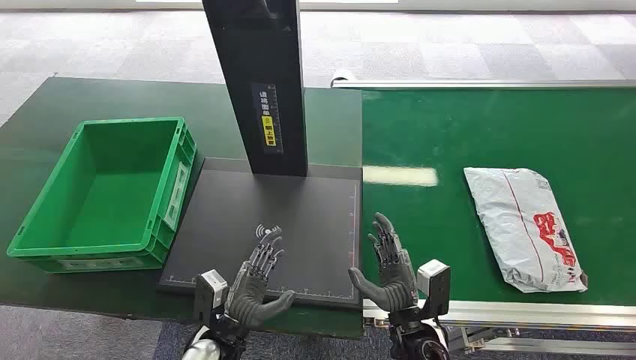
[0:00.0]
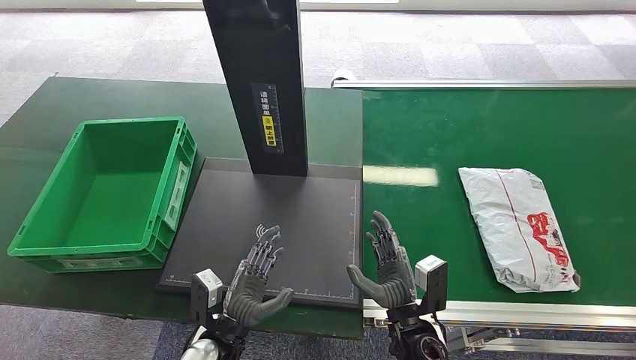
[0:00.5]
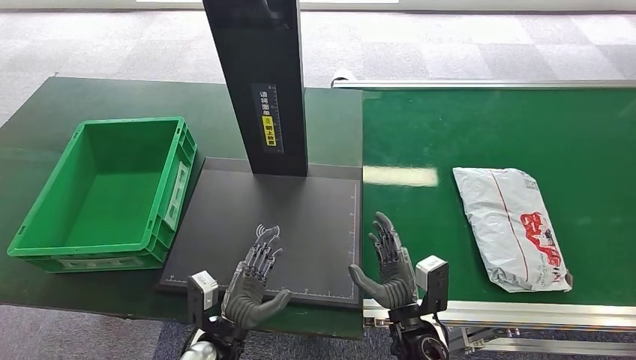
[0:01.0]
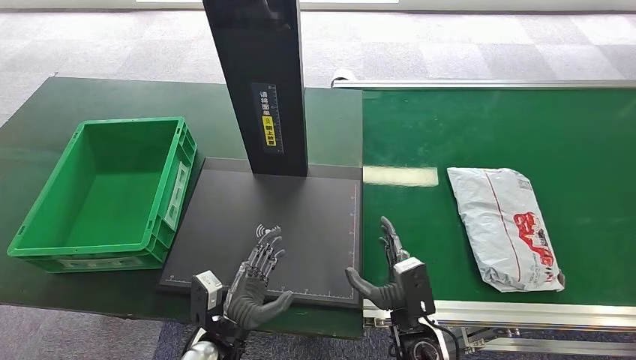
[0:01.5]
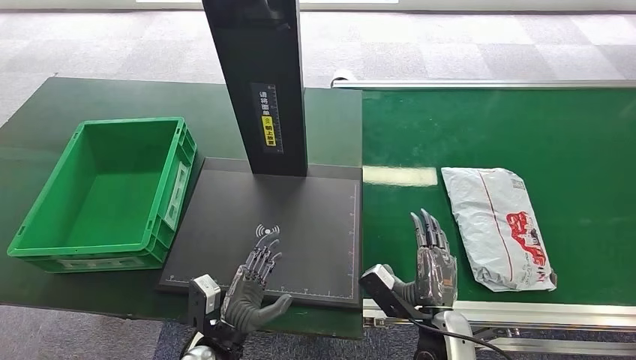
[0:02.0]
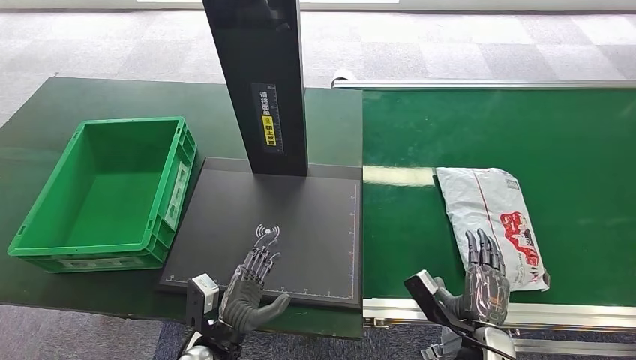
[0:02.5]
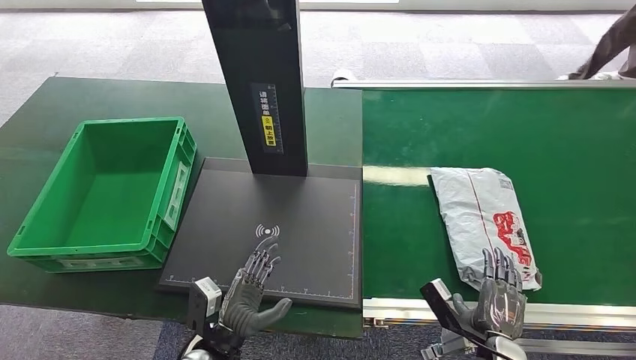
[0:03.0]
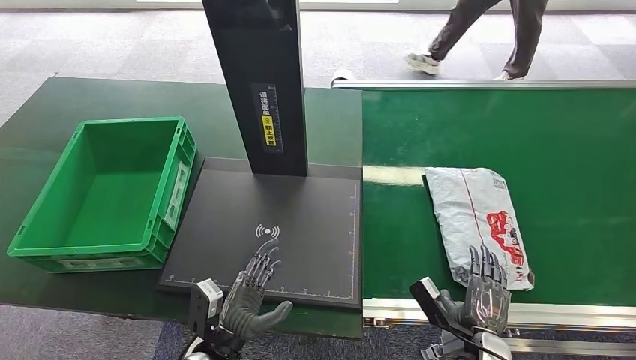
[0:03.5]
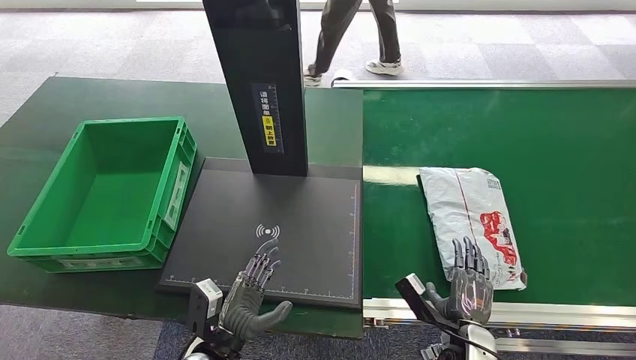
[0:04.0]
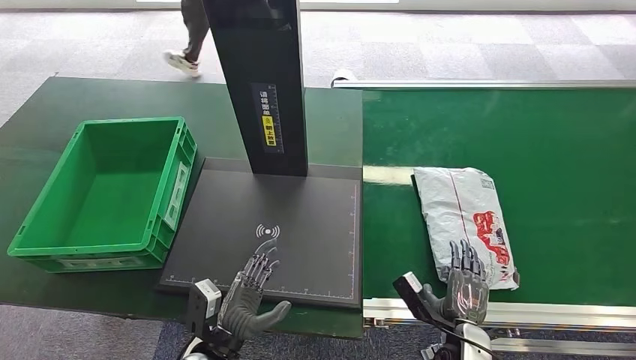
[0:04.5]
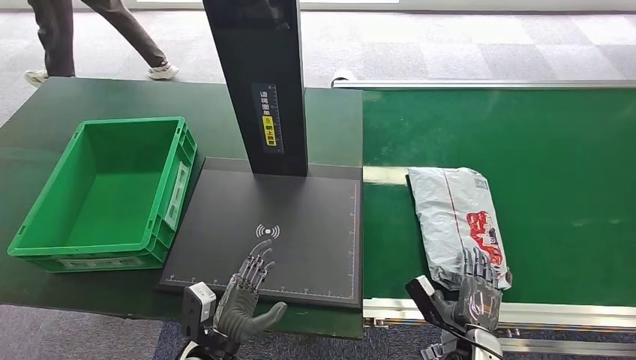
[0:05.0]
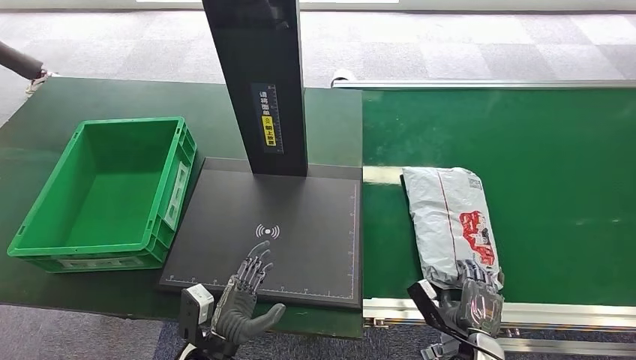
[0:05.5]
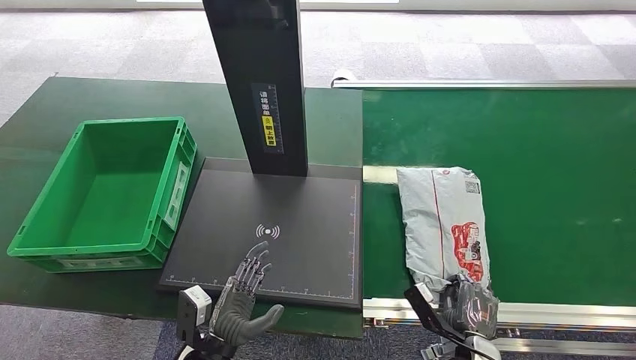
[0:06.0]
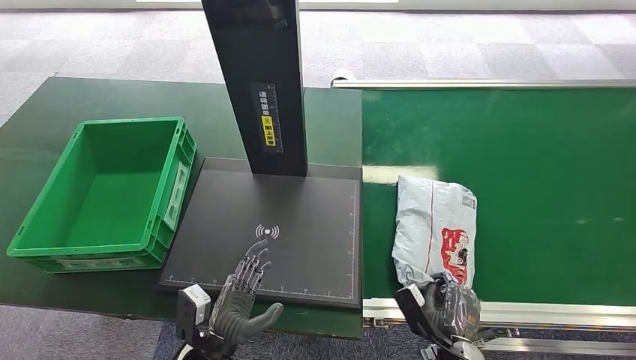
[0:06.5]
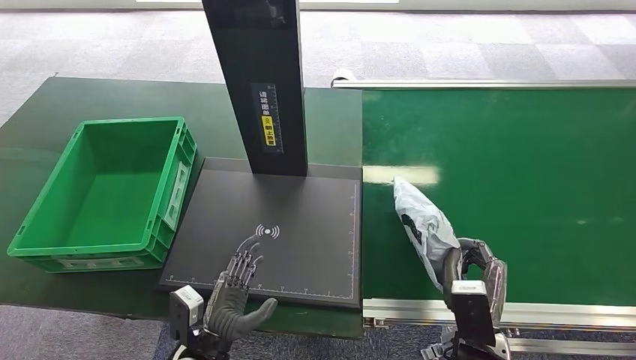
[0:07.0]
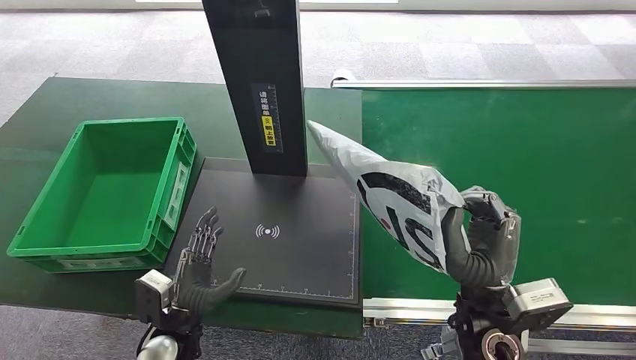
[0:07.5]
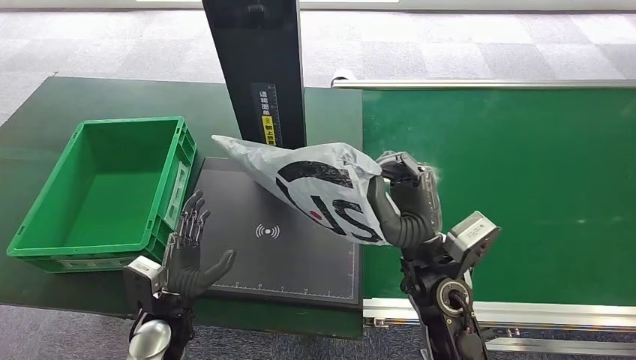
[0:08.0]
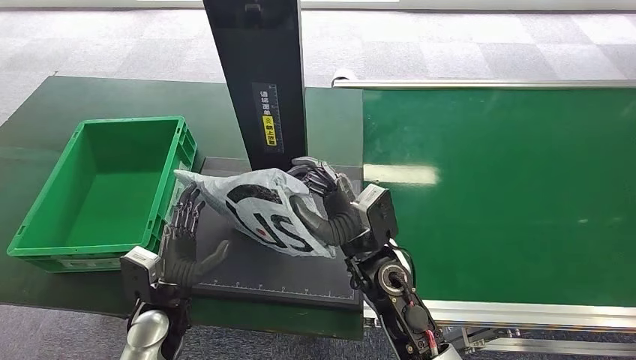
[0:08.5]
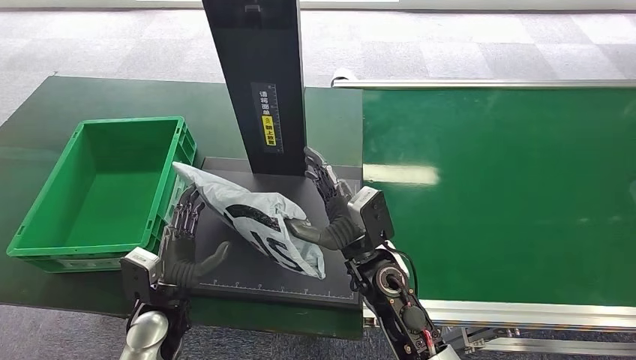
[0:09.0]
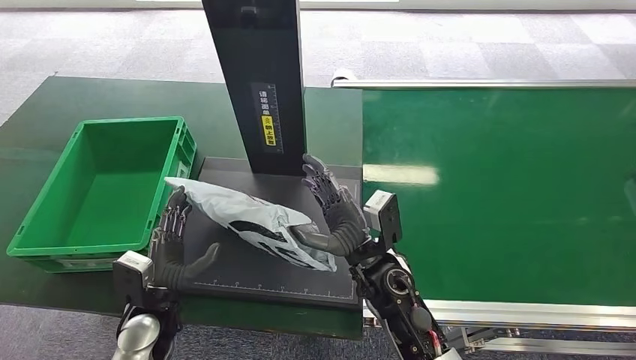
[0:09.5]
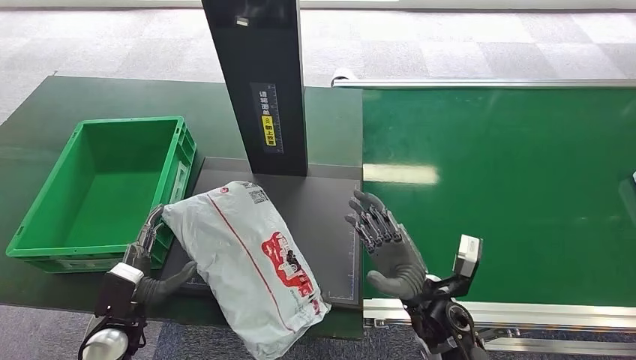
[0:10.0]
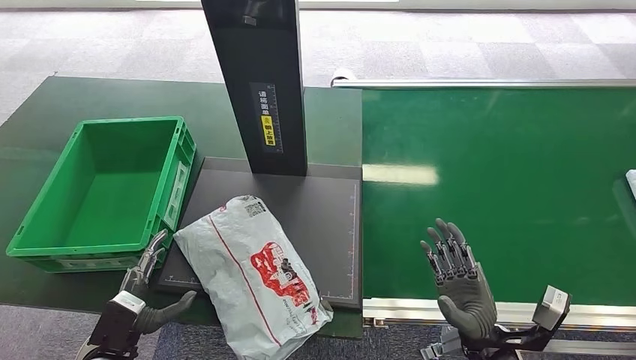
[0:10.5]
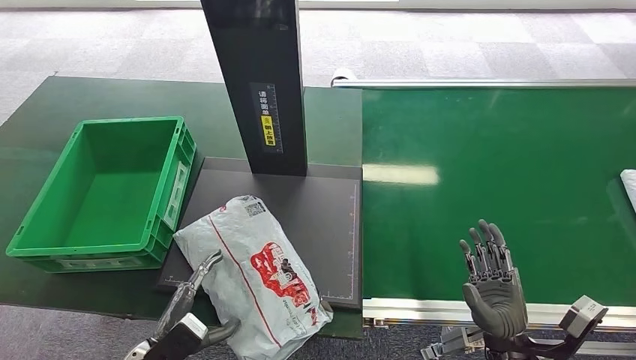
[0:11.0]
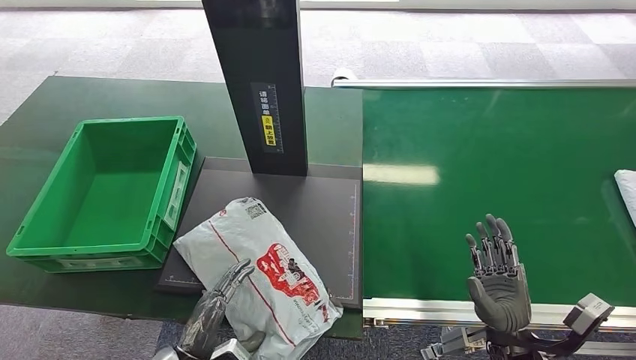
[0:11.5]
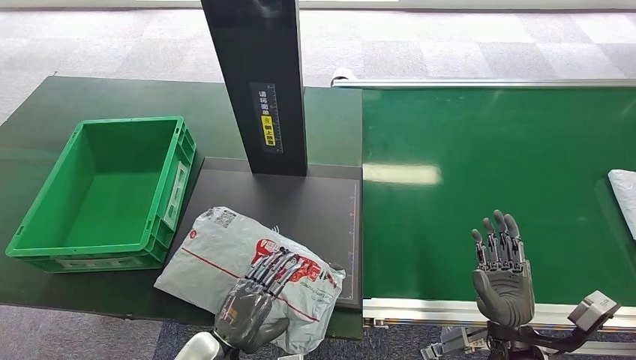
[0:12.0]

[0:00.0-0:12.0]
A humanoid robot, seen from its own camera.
Step, 0:00.0 to 0:07.5: Pick up the package from the conveyor belt.
Step, 0:08.5 to 0:09.5: Place the package onto the inbound machine.
0:02.0 to 0:04.0: The right hand travels downward and to the right by about 10 cm.
0:04.0 to 0:06.0: The hands make only small movements.
0:06.0 to 0:08.0: The left hand travels to the left and forward by about 10 cm; the right hand goes approximately 30 cm upward and to the left.
0:08.0 to 0:10.0: The left hand travels to the left by about 10 cm. The right hand moves downward, some 10 cm.
0:10.0 to 0:12.0: The right hand heads to the right and backward, covering about 10 cm; the left hand travels to the right by about 15 cm.

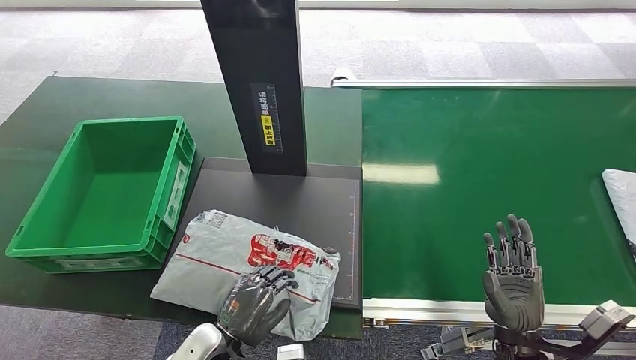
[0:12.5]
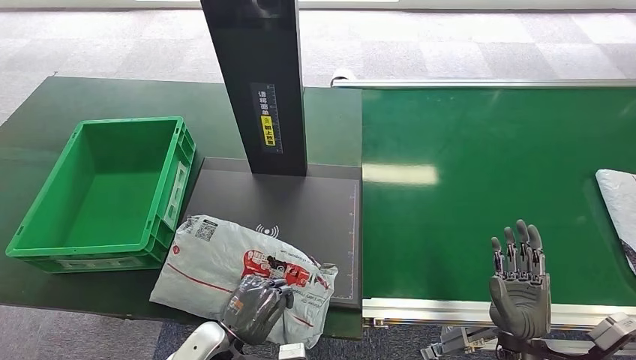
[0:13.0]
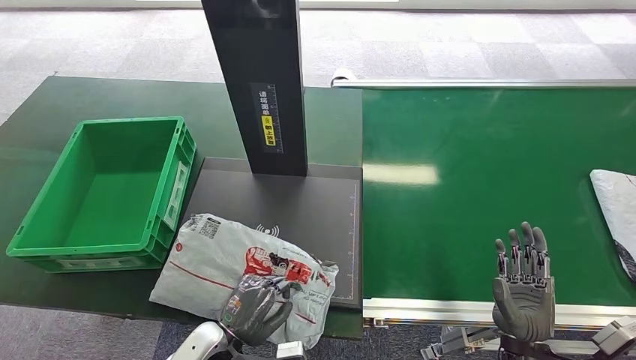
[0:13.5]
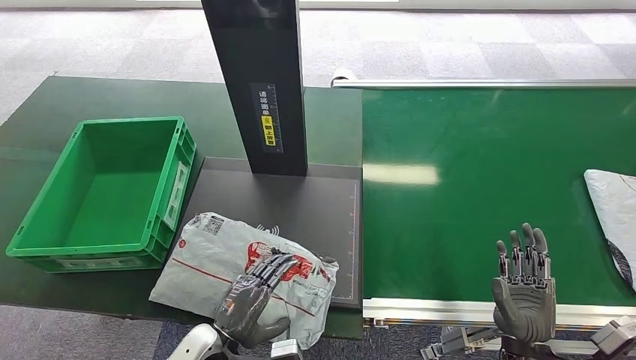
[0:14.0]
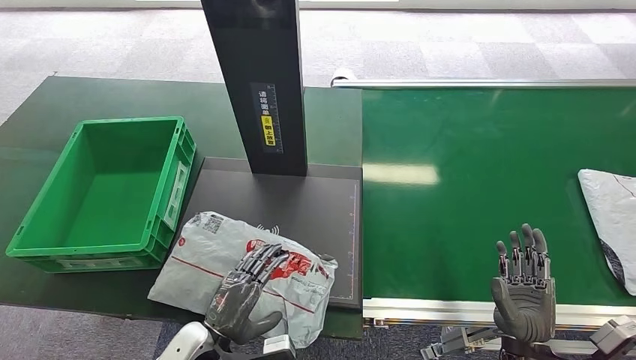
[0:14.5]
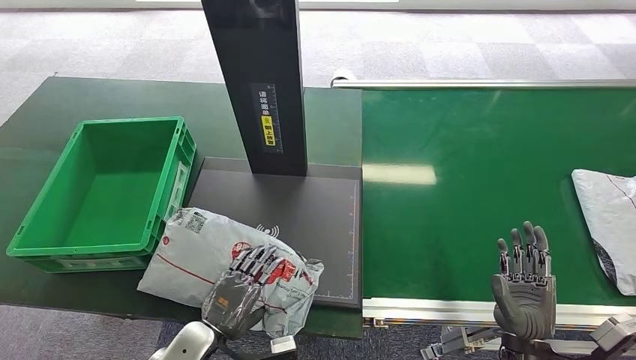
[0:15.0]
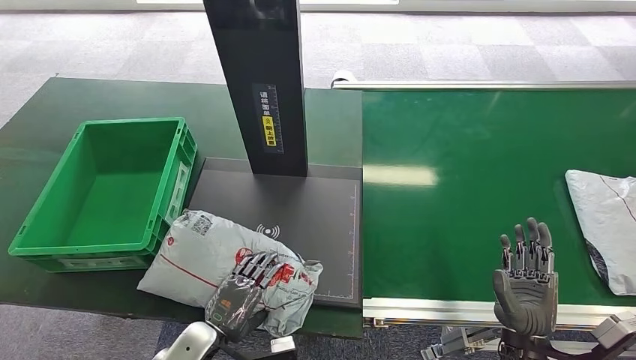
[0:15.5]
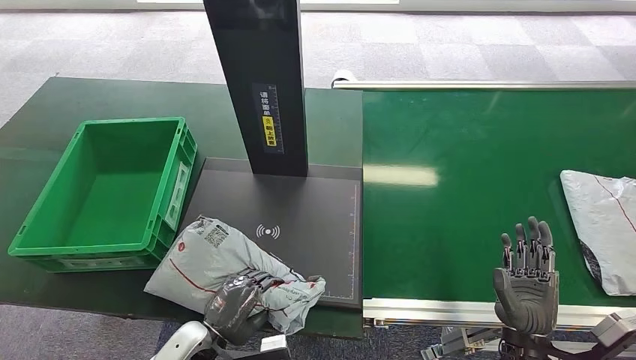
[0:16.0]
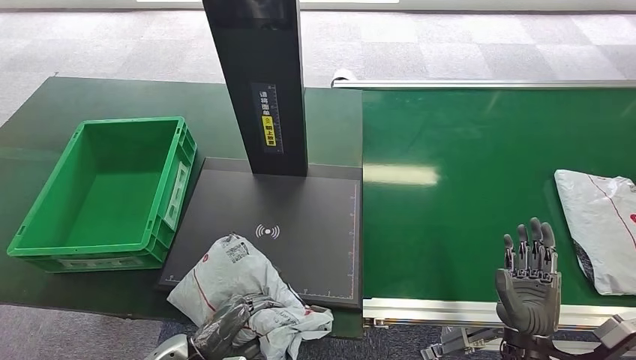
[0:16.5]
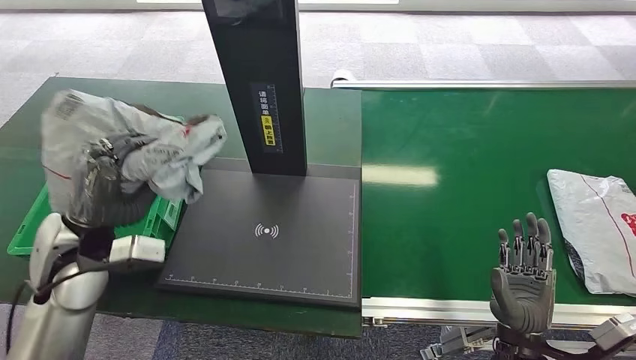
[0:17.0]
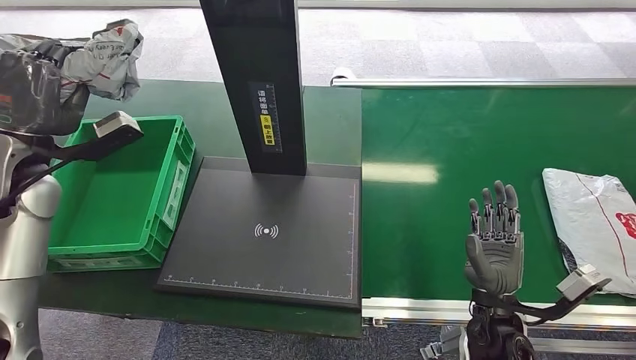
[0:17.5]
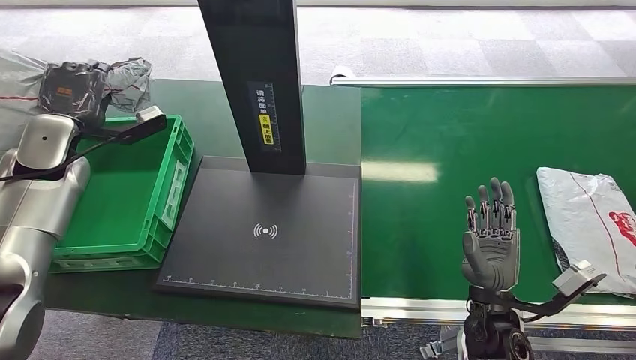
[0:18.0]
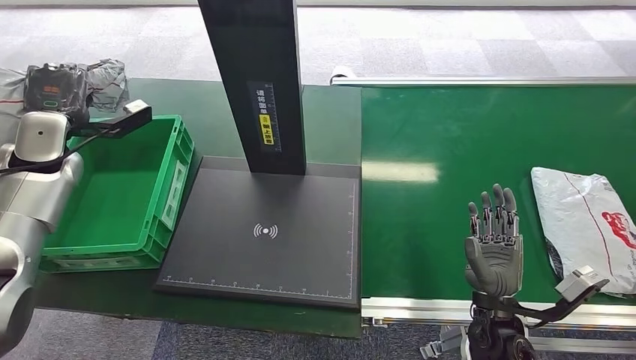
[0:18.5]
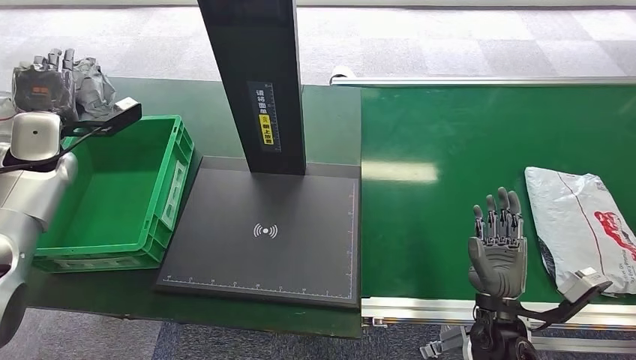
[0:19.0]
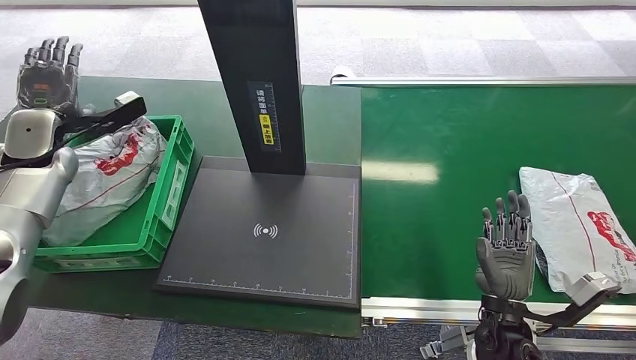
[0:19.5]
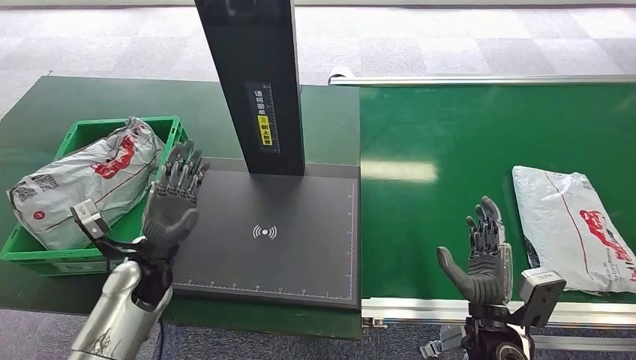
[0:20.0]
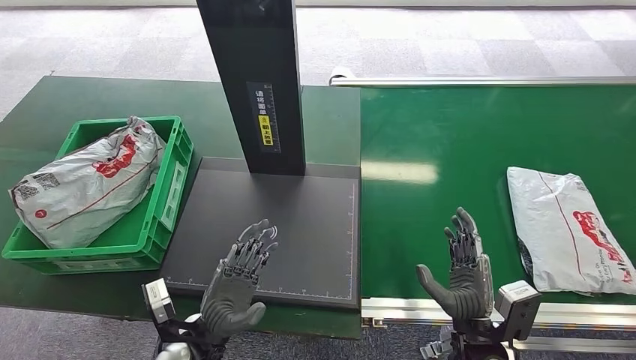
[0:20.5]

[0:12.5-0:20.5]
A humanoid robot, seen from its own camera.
Step, 0:12.5 to 0:17.0: Pick up the package from the inbound machine.
Step, 0:17.5 to 0:20.5: Place the package into the parcel locker.
0:12.5 to 0:14.5: The hands make only small movements.
